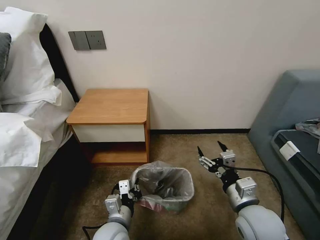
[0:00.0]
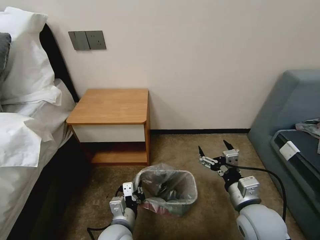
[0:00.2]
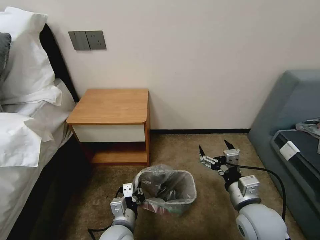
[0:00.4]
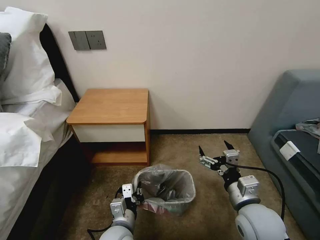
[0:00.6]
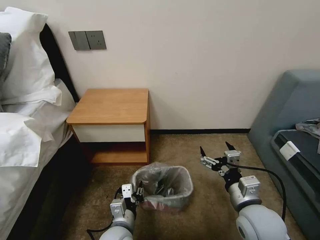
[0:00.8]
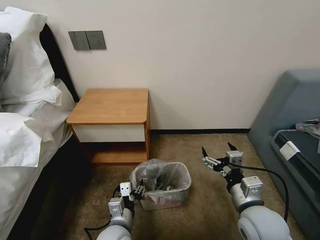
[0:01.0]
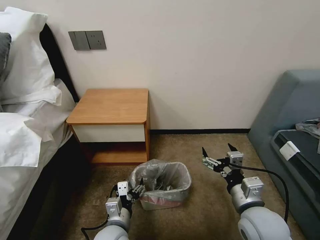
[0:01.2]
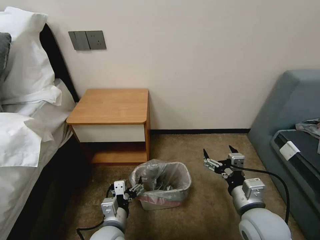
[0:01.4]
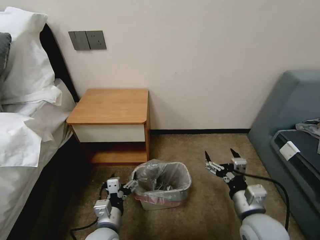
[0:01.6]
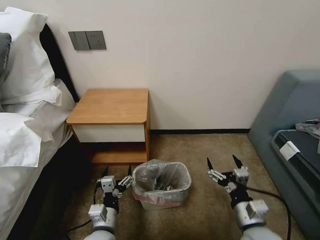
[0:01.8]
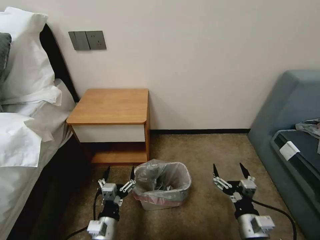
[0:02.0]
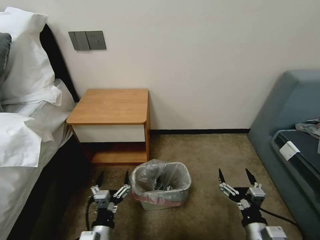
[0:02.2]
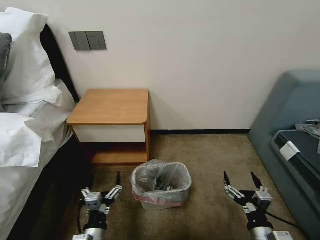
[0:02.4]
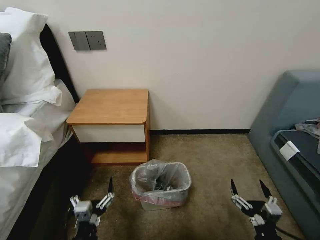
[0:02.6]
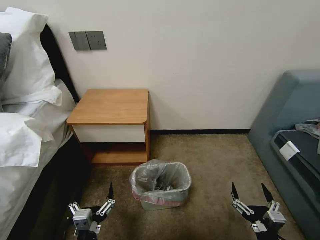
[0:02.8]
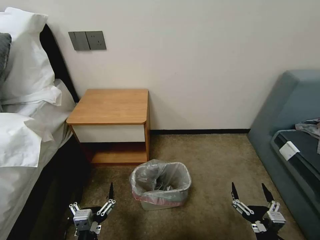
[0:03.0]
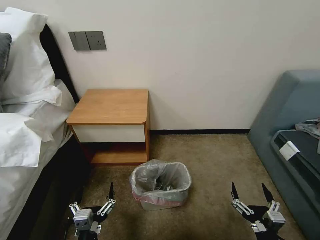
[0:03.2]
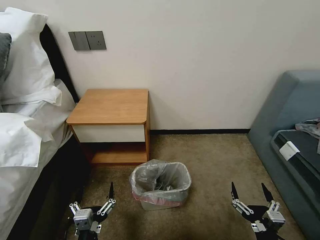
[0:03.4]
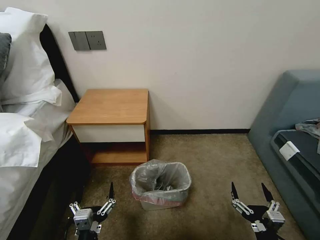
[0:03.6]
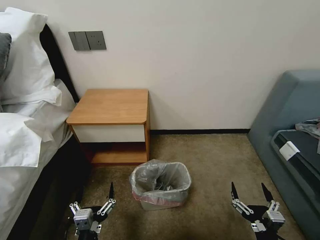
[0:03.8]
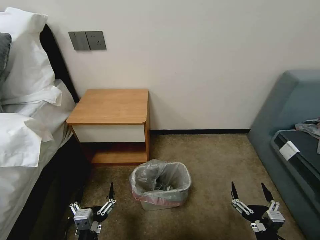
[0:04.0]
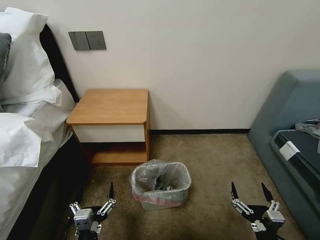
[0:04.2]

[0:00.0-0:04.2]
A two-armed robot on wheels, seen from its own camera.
Task of the whole recording: Pick up the garbage bag from the table and place it over the trash can.
0:00.0 to 0:01.4: The left gripper opens its fingers.
0:01.4 to 0:02.8: The right gripper heads backward, downward and to the right, covering about 20 cm. Meanwhile the left gripper is displaced backward and to the left by about 10 cm.
0:02.8 to 0:04.2: The two grippers keep their place.

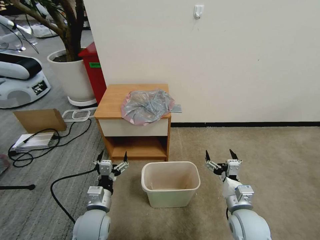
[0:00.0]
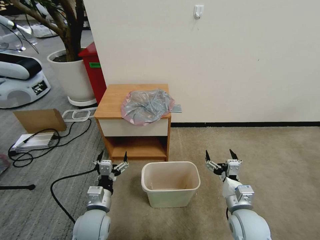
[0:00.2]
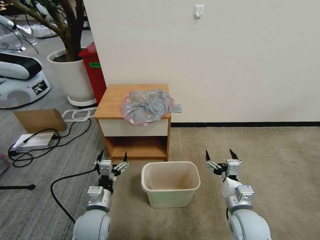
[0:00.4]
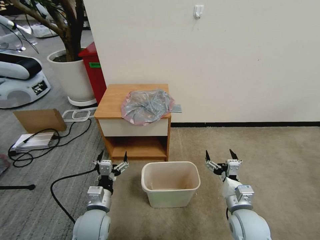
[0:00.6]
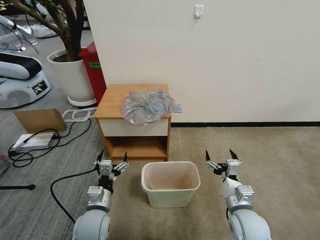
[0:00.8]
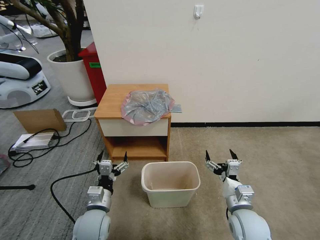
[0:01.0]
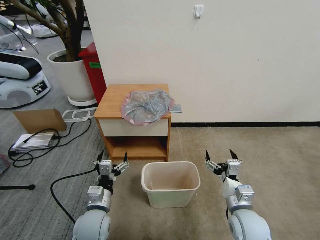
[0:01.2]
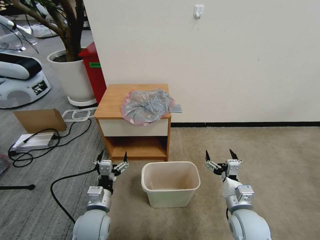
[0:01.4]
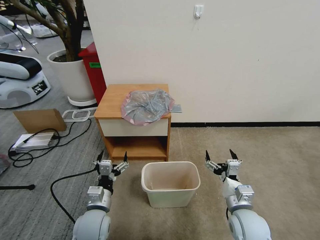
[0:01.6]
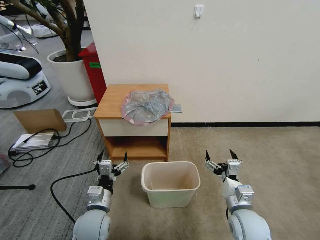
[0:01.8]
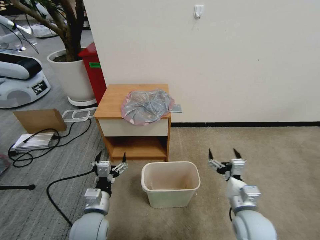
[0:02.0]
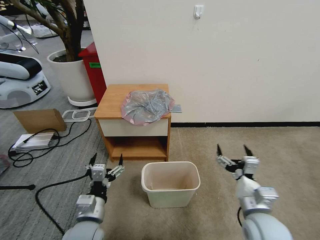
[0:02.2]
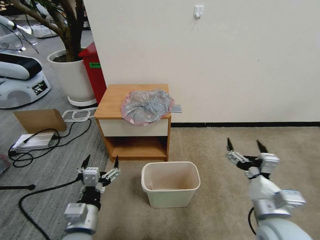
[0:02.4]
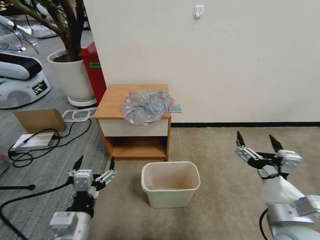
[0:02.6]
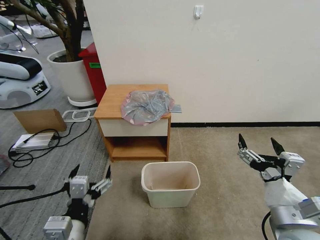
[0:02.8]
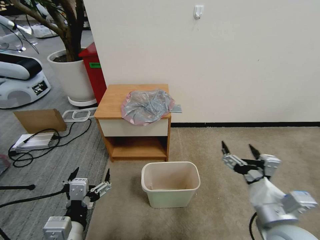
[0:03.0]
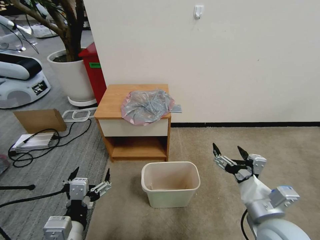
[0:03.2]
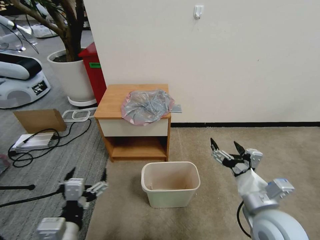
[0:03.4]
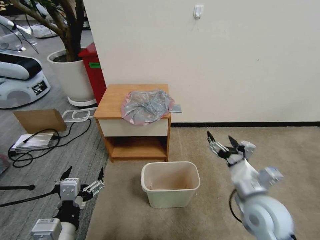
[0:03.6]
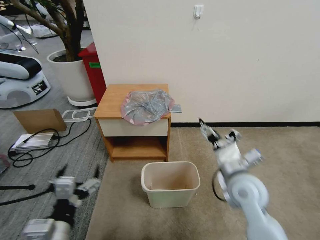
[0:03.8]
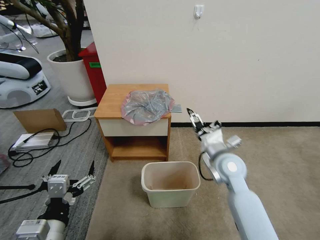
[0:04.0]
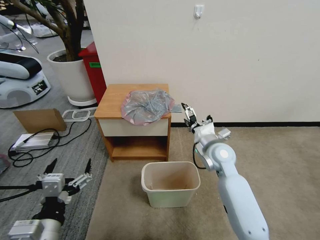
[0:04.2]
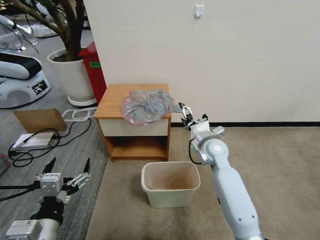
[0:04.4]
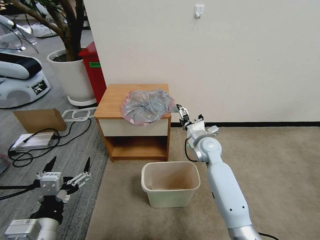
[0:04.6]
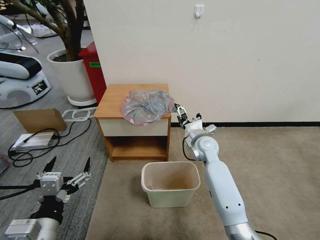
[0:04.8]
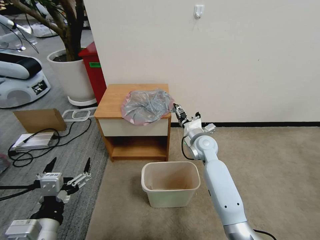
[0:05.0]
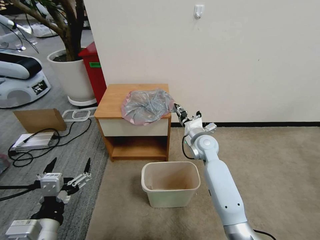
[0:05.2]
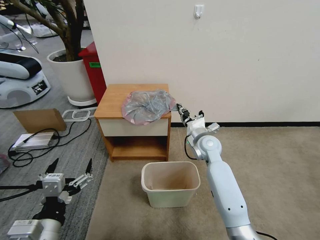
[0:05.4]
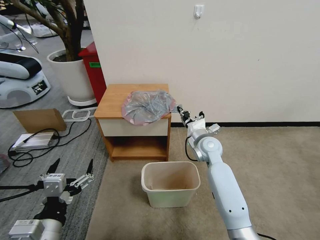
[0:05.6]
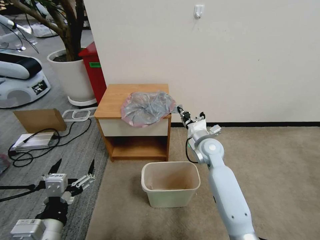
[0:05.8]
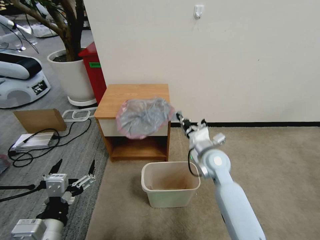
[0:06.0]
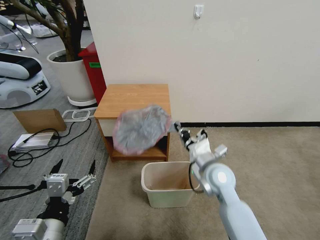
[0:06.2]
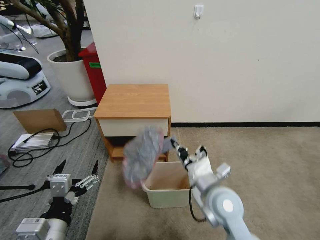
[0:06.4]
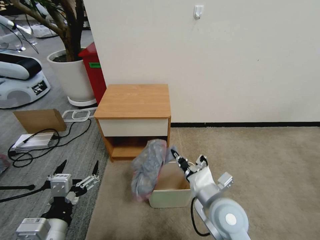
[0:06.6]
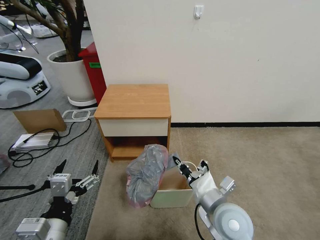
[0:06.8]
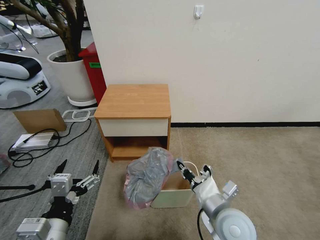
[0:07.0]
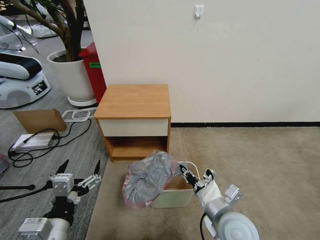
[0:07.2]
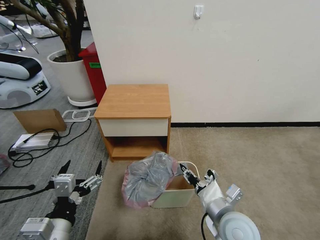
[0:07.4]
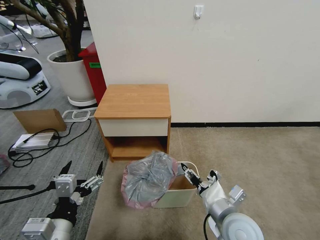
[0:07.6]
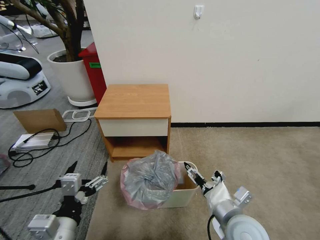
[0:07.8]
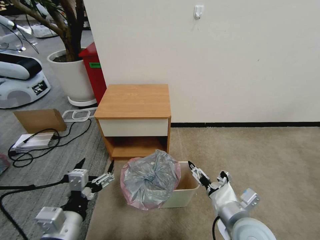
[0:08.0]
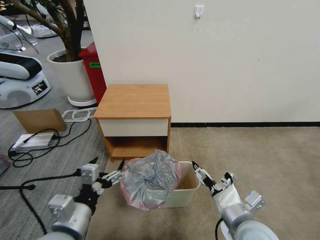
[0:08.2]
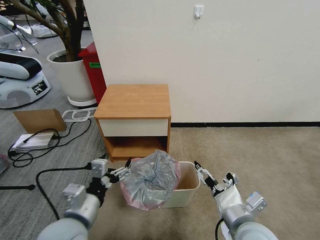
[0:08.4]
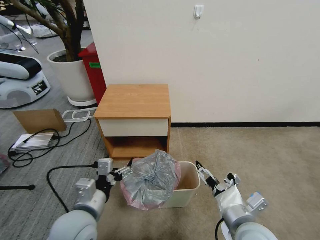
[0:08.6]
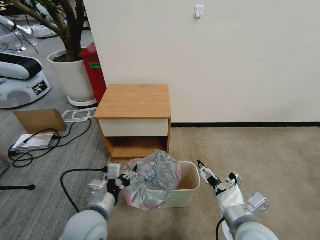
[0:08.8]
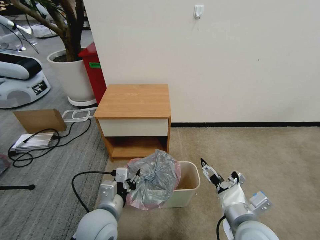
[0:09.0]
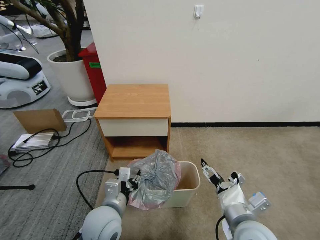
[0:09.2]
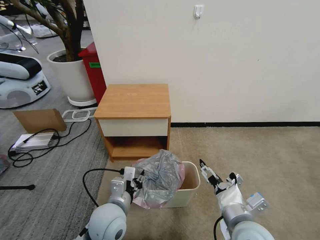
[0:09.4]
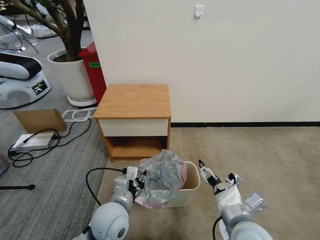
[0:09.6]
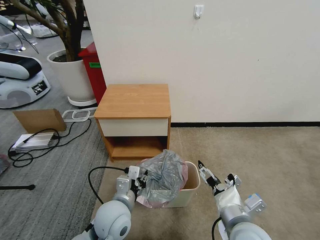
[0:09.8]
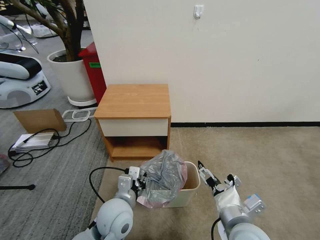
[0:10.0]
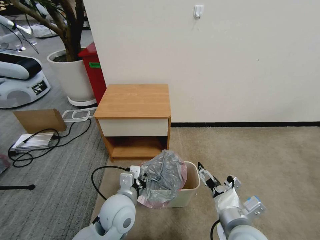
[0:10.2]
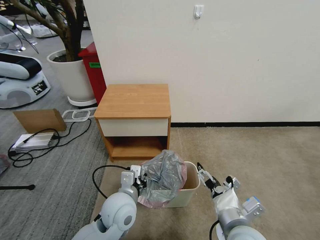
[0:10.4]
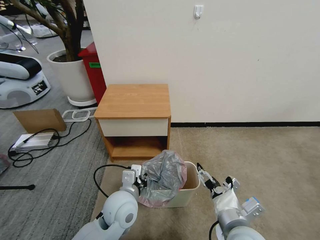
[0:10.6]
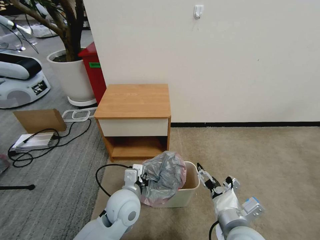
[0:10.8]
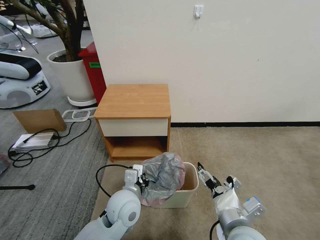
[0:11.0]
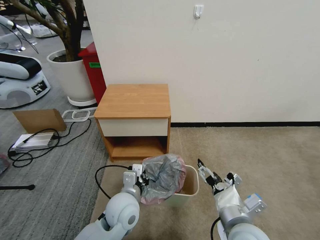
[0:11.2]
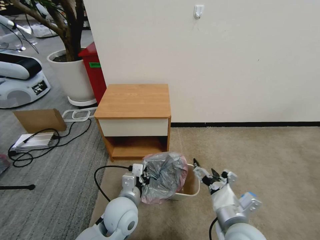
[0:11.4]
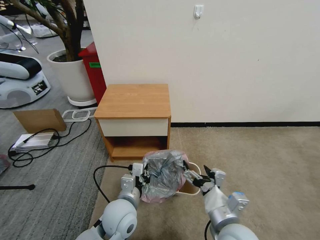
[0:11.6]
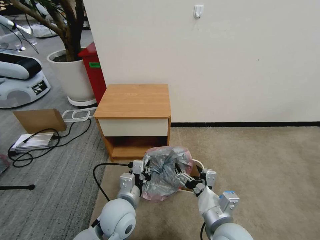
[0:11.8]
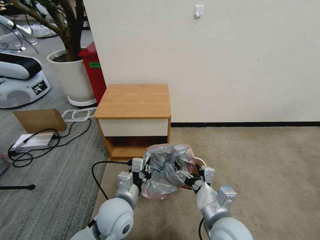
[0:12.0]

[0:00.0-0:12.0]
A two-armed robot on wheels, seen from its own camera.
Task of the whole recording: Pick up the garbage bag from the table and place it over the trash can.
0:01.6 to 0:03.0: Both grippers travel together upward and backward, roughly 15 cm.
0:03.0 to 0:04.4: The right gripper heads forward, covering approximately 30 cm.
0:04.4 to 0:06.0: The right gripper moves backward, about 5 cm, and closes.
0:06.0 to 0:07.6: The right gripper travels backward by about 20 cm, and opens up.
0:07.6 to 0:09.0: The right gripper opens; the left gripper goes roughly 15 cm forward, to the right and downward, and closes.
0:09.0 to 0:10.4: The left gripper shifts by some 5 cm.
0:10.4 to 0:12.0: The left gripper closes its fingers.

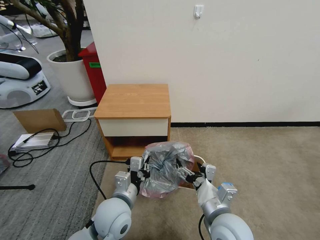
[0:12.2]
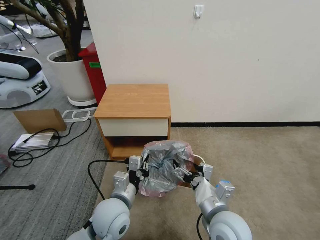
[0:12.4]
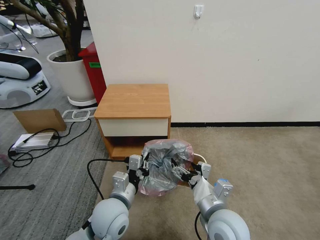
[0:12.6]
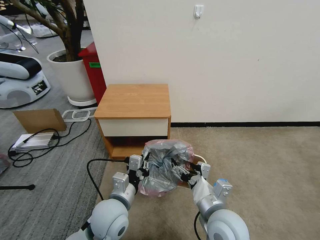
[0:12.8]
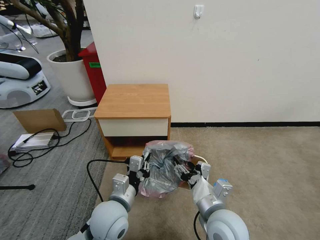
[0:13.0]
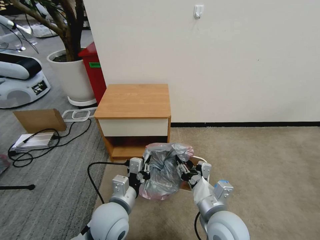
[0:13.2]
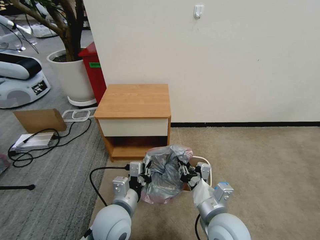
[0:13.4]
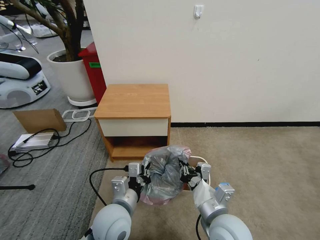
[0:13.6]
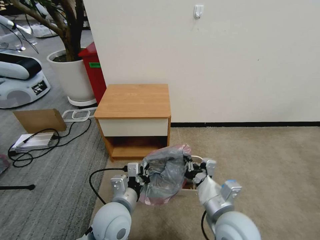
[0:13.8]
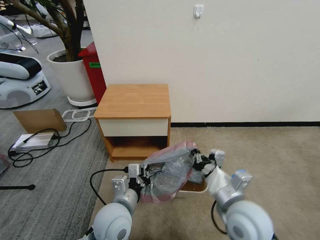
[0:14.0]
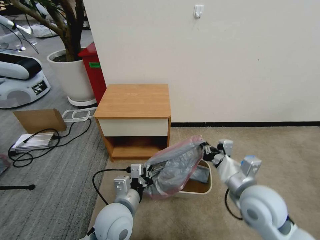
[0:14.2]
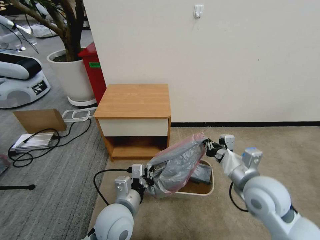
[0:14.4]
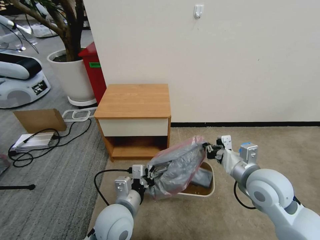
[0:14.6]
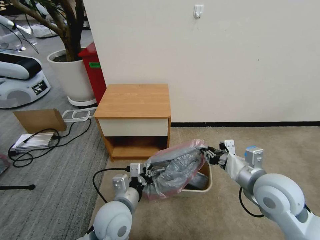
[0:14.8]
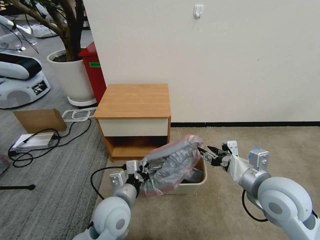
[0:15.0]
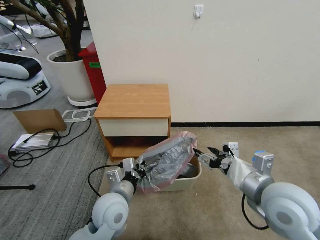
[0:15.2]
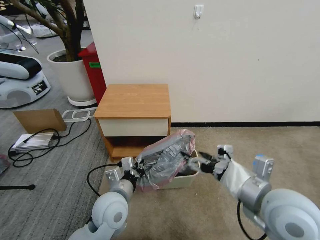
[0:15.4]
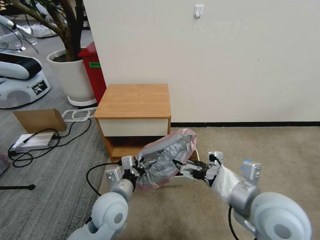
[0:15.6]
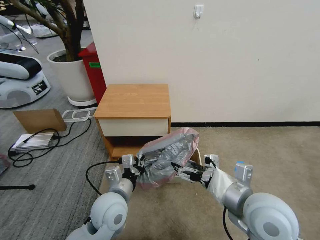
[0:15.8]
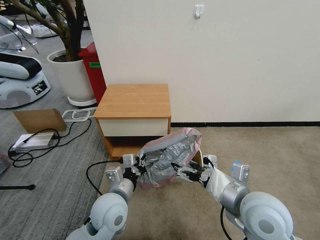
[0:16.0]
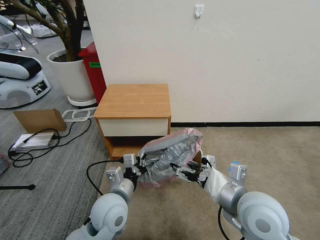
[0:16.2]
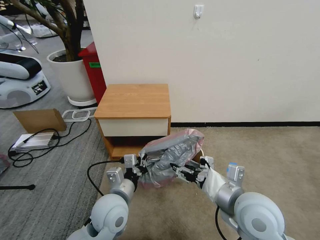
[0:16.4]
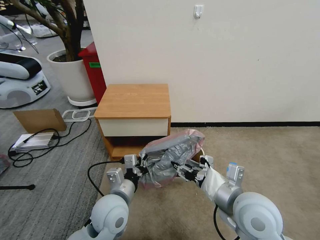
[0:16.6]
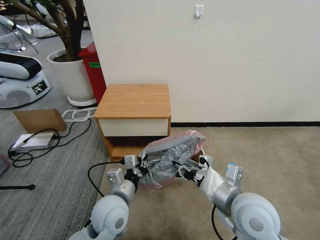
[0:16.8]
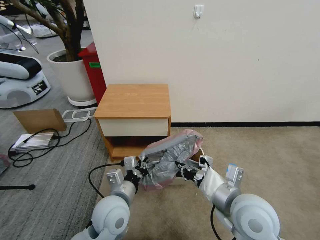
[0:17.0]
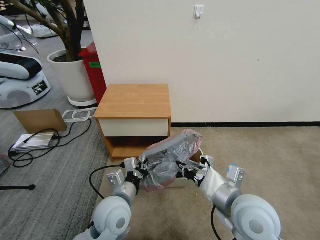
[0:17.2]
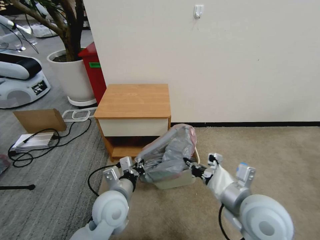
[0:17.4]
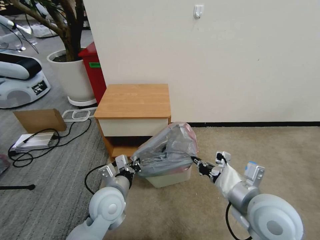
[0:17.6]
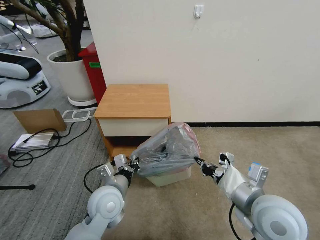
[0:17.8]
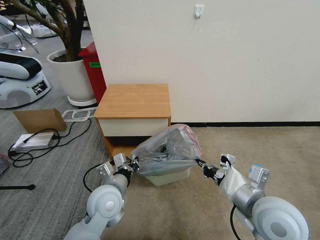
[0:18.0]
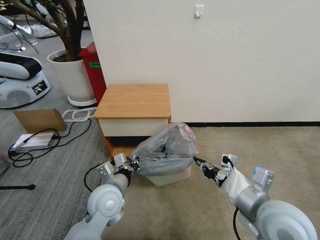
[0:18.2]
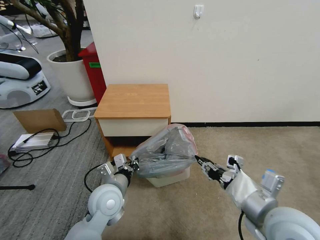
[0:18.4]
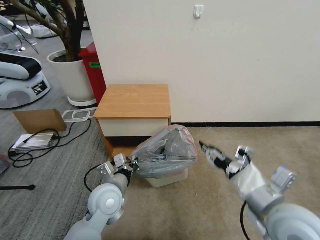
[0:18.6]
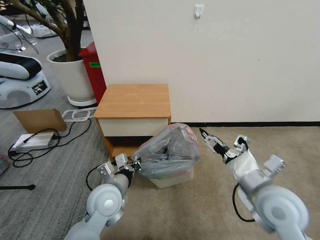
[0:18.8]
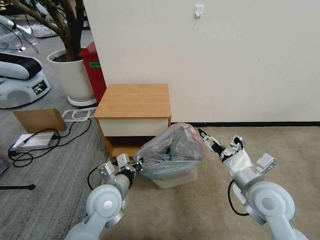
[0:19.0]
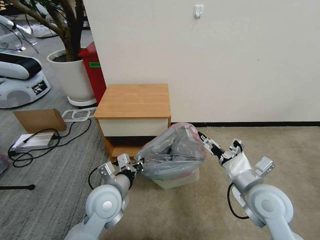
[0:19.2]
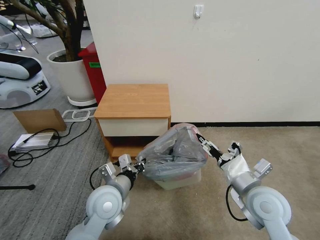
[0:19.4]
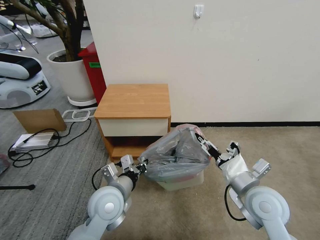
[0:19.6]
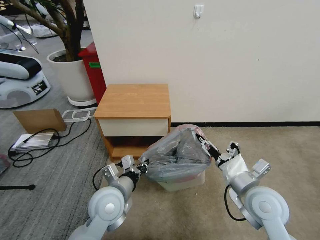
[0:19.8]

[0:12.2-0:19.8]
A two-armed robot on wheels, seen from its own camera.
Task of the whole recording: Pick up the garbage bag from the table and place it over the trash can.
0:12.2 to 0:13.8: The right gripper closes its fingers.
0:13.8 to 0:15.2: The right gripper heads to the right and upward, covering some 15 cm, and opens.
0:15.2 to 0:16.8: The right gripper is displaced to the left by roughly 5 cm, and opens, then closes once more.
0:16.8 to 0:18.2: The right gripper ends up approximately 5 cm from where it was.
0:18.2 to 0:19.8: The right gripper shifts approximately 10 cm downward and forward, and opens up.
